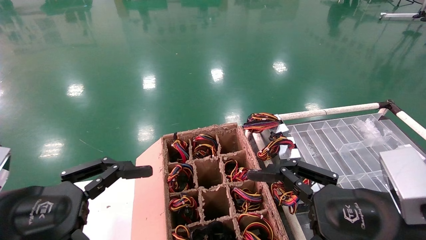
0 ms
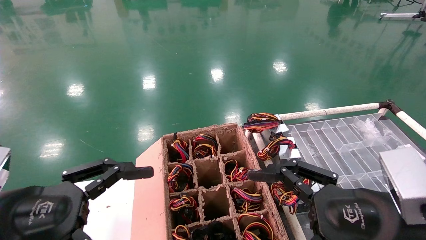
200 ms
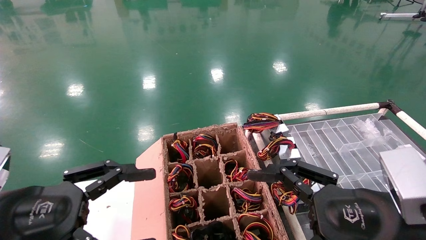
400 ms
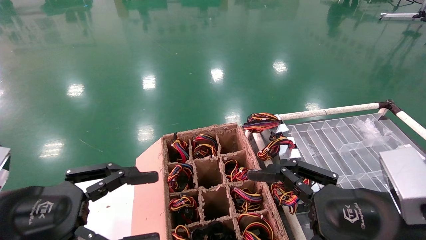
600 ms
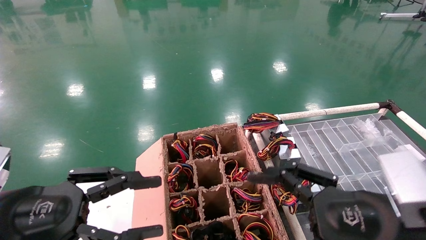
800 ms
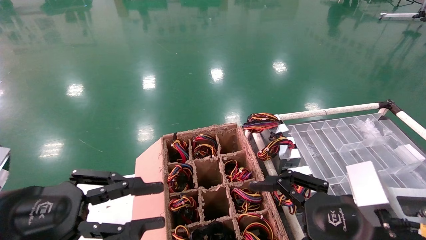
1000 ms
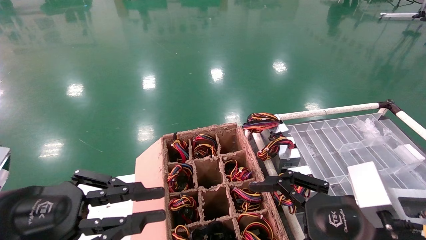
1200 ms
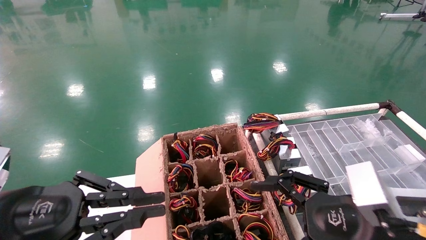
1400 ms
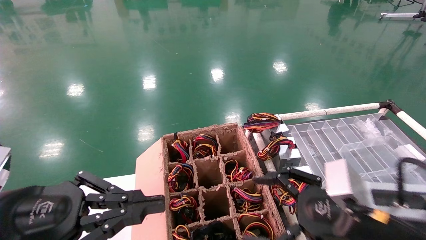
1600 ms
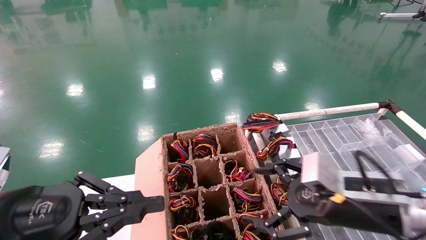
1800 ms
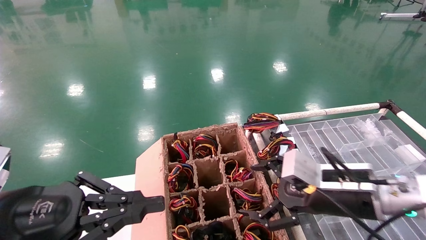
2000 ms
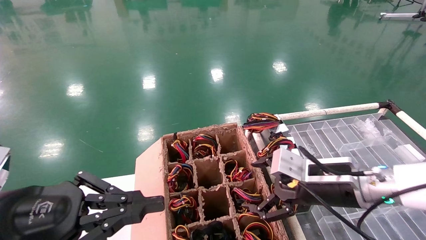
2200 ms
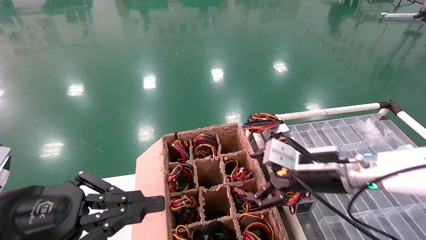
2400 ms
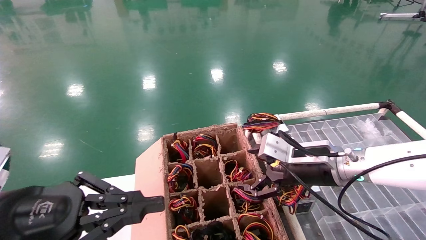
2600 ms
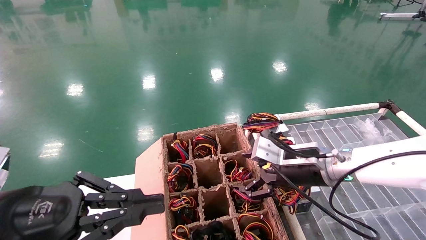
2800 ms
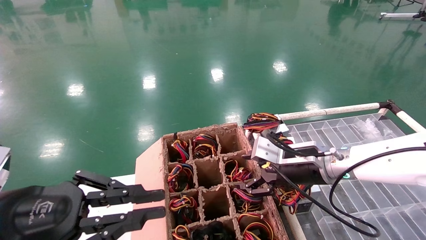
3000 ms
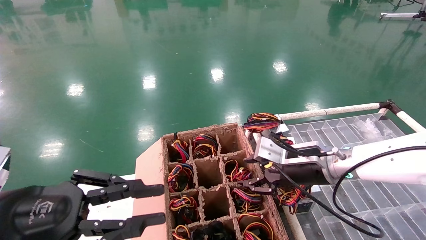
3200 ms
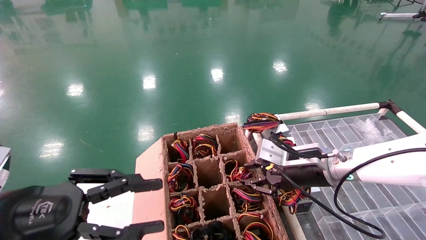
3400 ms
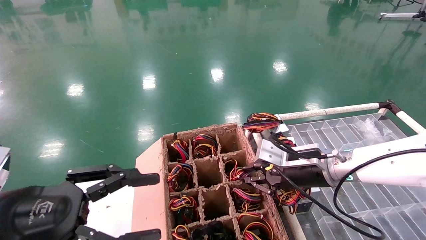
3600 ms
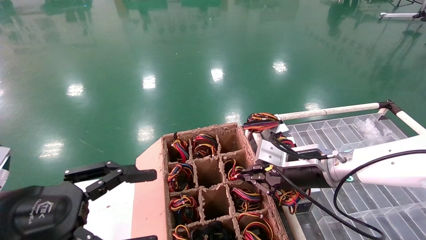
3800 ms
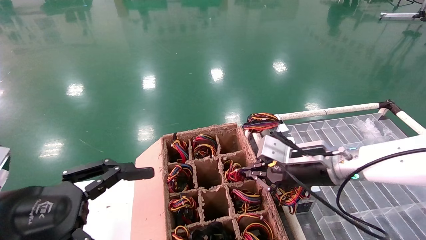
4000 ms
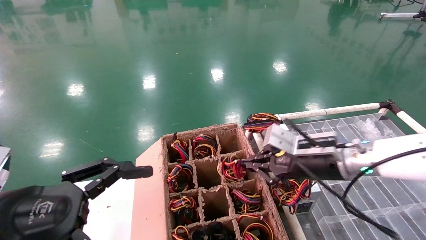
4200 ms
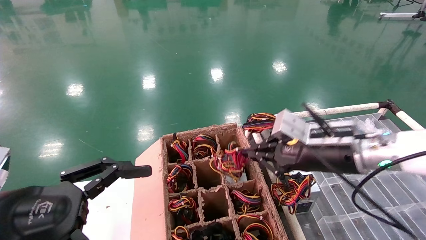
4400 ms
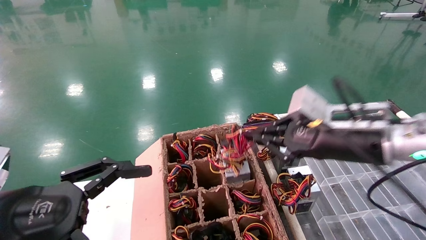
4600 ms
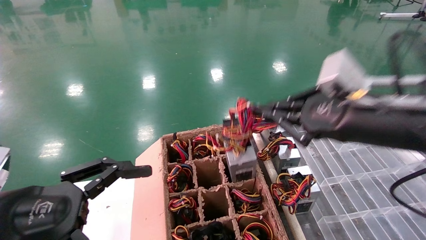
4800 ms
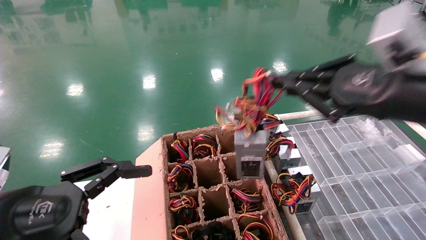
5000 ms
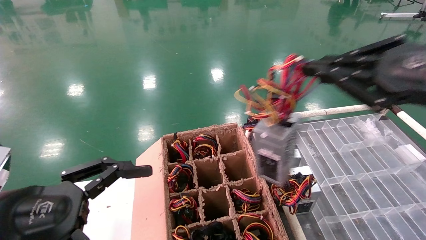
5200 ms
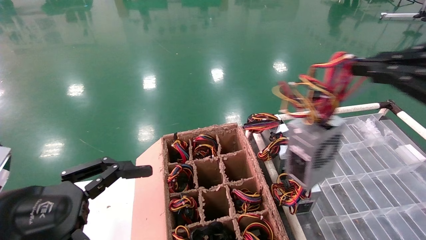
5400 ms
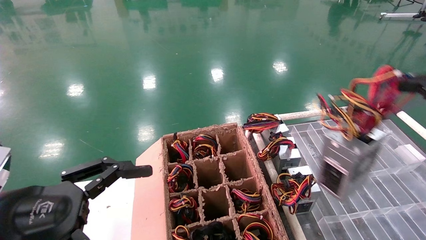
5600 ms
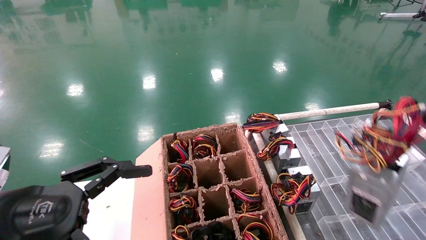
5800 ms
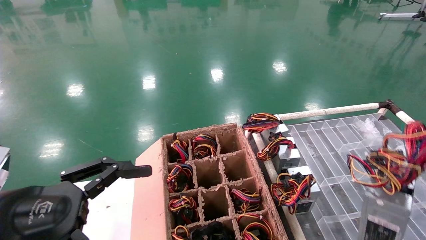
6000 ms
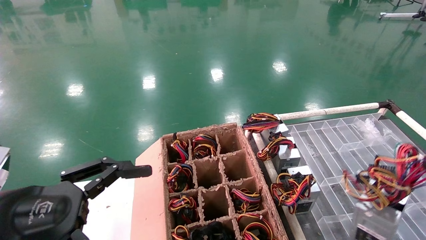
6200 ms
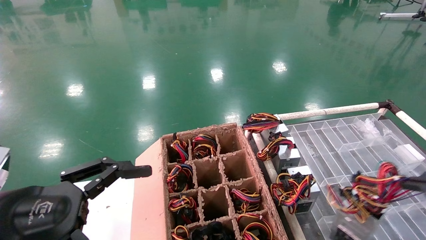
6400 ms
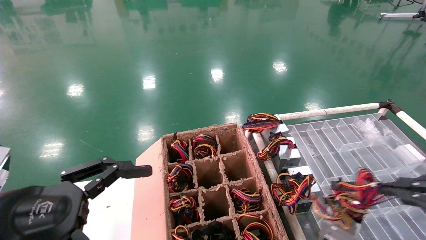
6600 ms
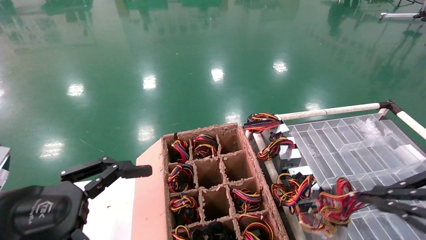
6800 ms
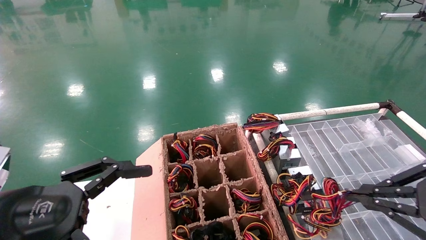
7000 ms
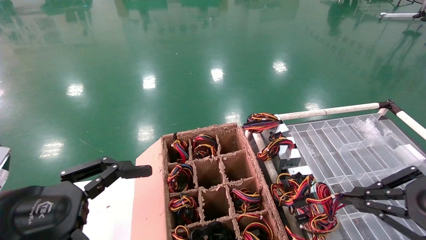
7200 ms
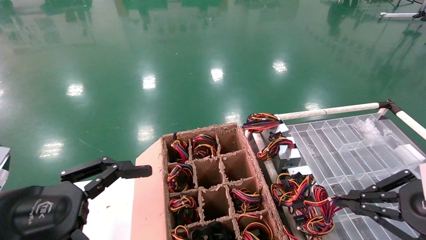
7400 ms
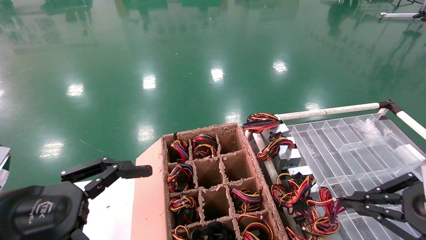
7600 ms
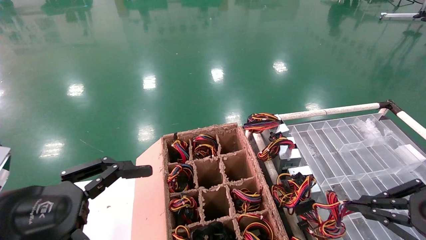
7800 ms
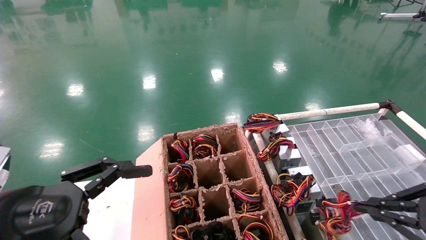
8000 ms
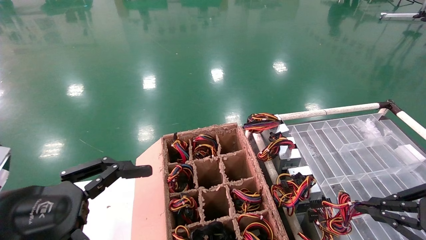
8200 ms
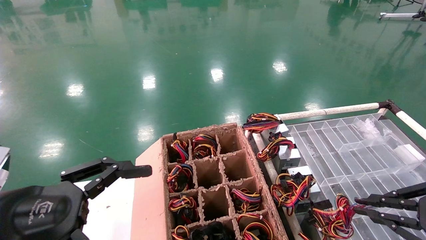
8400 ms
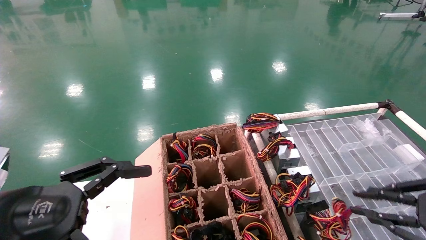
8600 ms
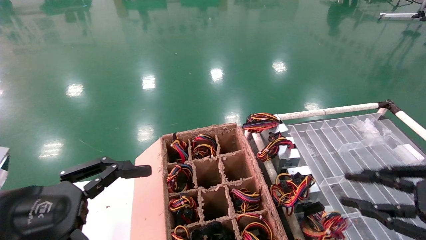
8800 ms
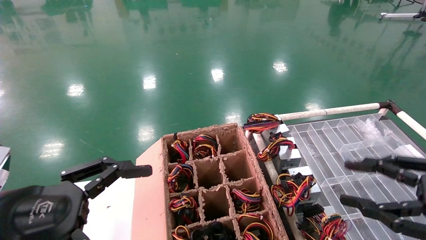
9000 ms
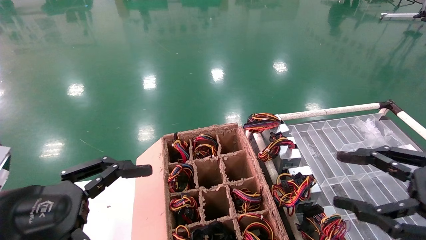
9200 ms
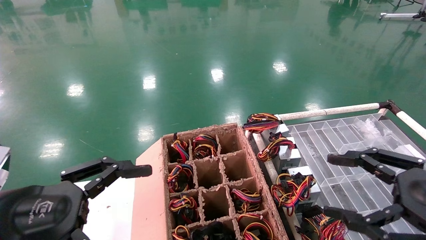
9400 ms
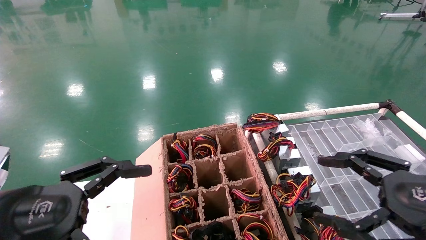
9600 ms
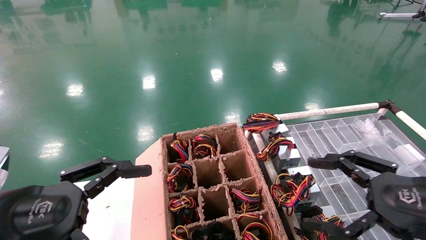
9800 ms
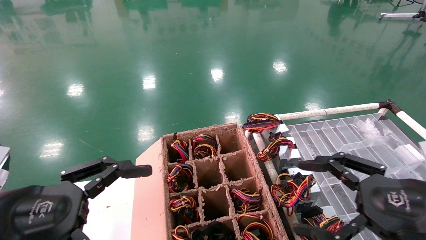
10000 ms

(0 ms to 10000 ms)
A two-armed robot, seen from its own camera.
Step, 1800 ms - 3800 ms: Grab and lift the power supply from the large box.
Step, 4000 ms - 8400 ms: Place the power supply on the operating table.
0 ms - 1400 ms: The left gripper closes its fingers.
1400 ms - 2800 ms: The right gripper is displaced forward by roughly 15 cm.
2800 ms - 4200 ms: The left gripper opens. Meanwhile the right gripper closes up.
4200 ms - 5800 ms: The right gripper heads backward, to the right and upward, covering roughly 35 cm.
5800 ms - 7200 ms: The right gripper shifts some 10 cm downward and forward.
8600 ms - 10000 ms: The right gripper heads to the left, covering about 10 cm, and opens.

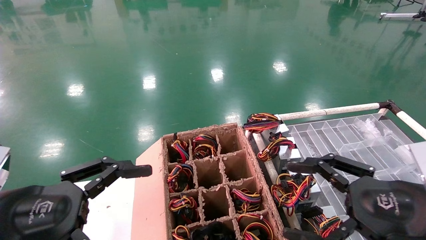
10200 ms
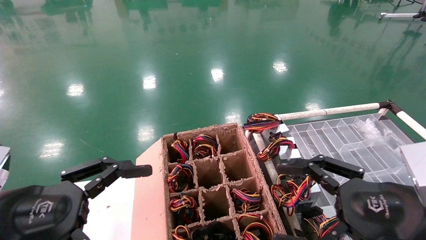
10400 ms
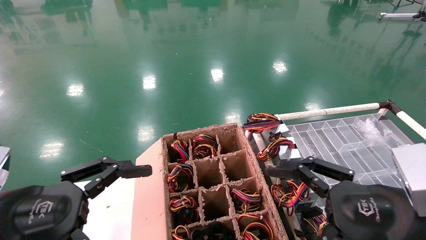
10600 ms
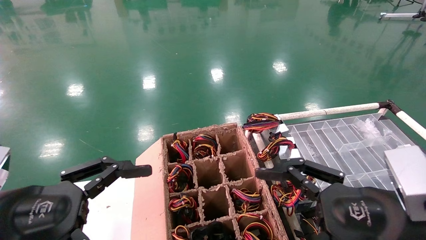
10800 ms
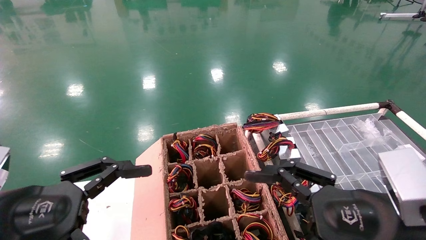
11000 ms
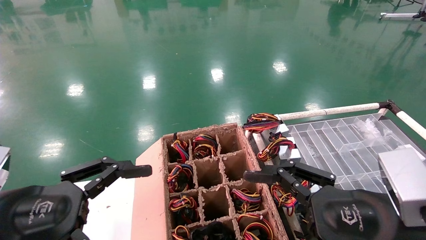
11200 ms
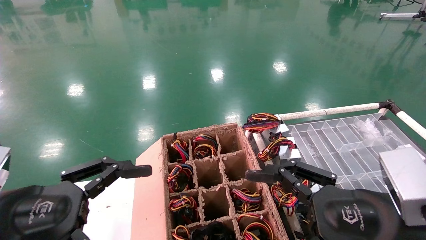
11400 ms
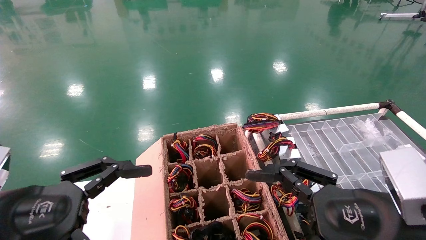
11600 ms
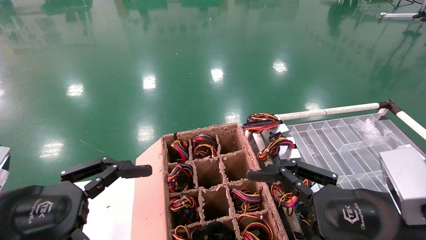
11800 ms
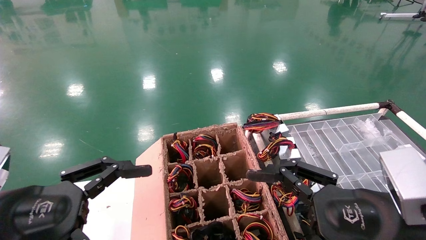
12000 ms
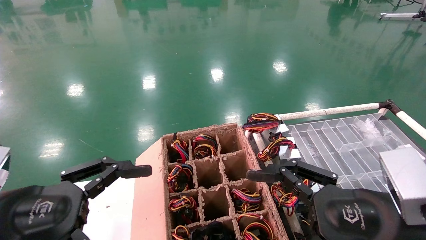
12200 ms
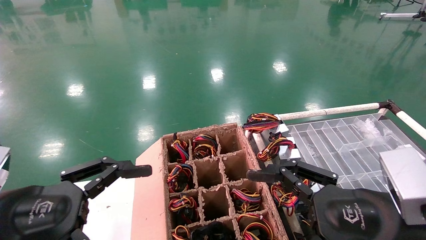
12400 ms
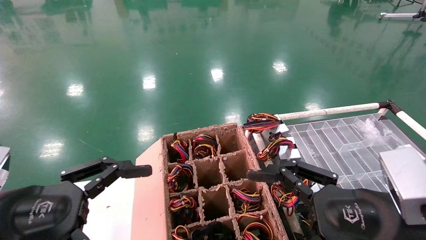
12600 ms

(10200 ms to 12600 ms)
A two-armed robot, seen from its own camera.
10200 ms - 11400 ms: The right gripper travels to the left by roughly 5 cm.
11400 ms - 12600 ms: Both grippers stay about where they are.

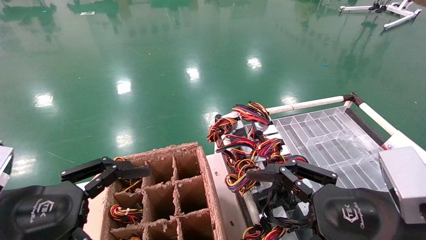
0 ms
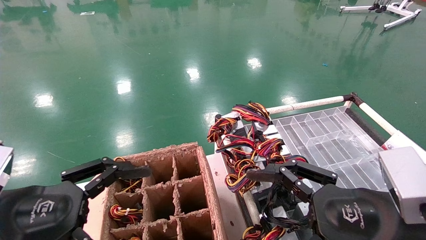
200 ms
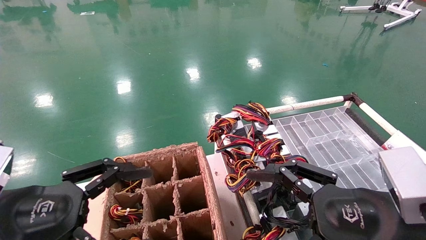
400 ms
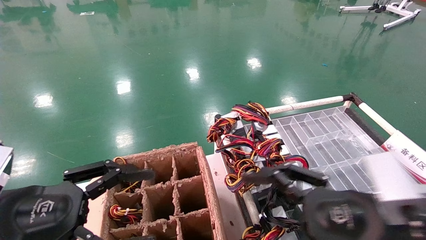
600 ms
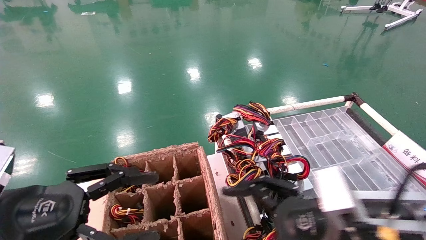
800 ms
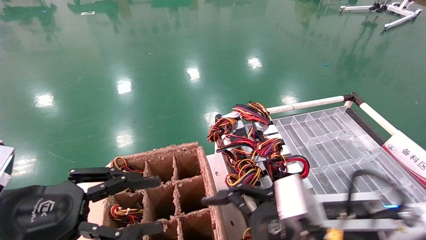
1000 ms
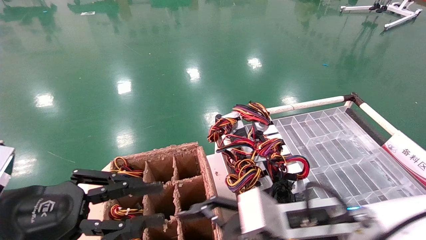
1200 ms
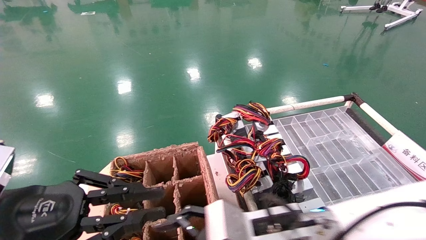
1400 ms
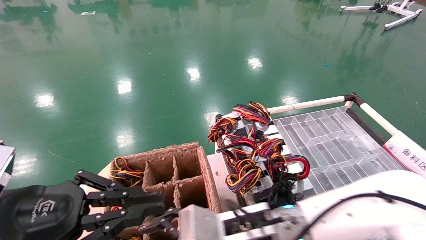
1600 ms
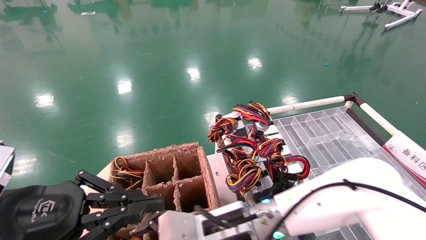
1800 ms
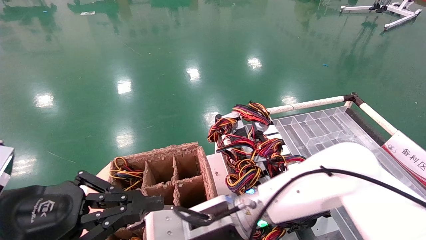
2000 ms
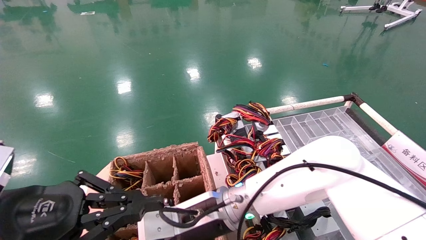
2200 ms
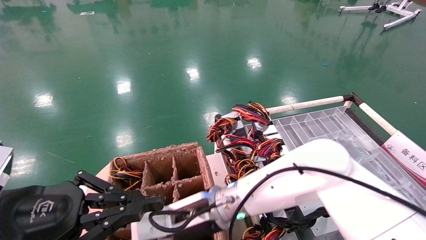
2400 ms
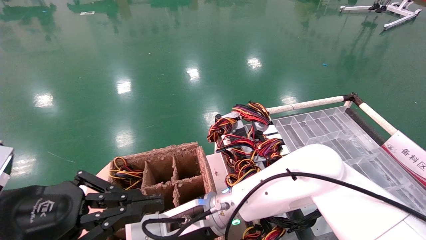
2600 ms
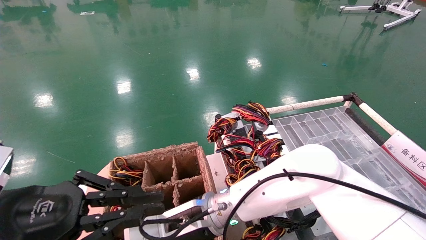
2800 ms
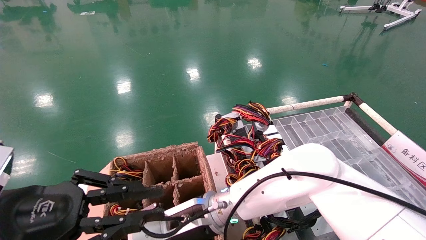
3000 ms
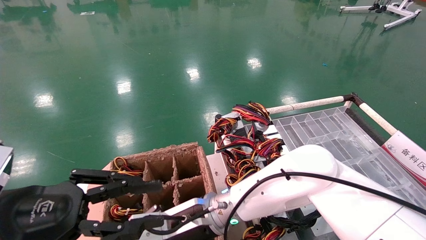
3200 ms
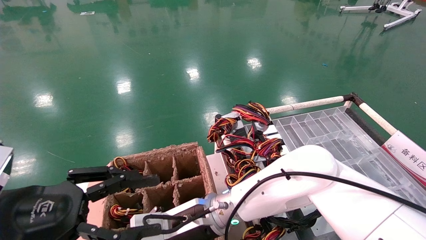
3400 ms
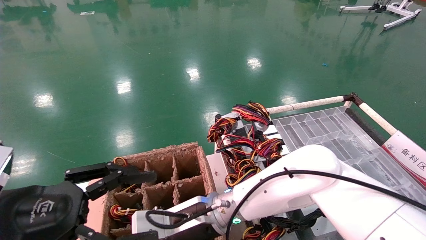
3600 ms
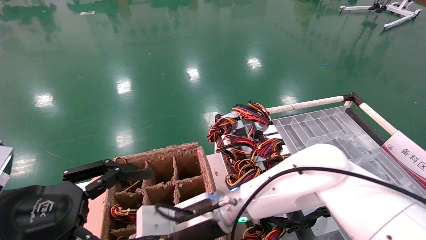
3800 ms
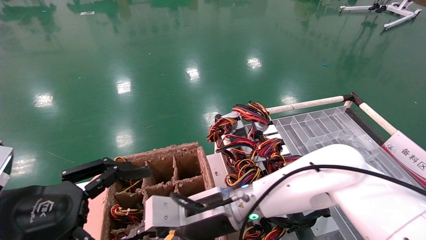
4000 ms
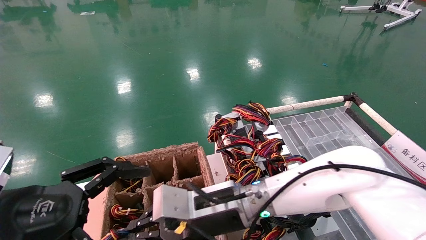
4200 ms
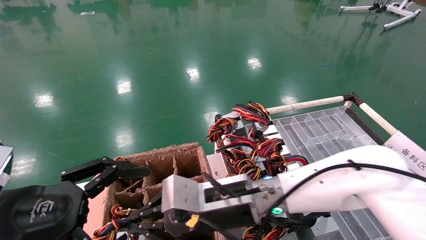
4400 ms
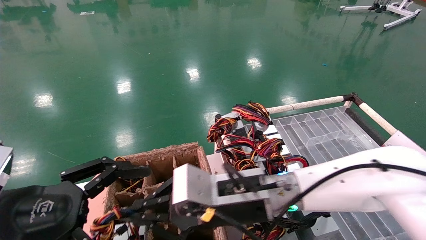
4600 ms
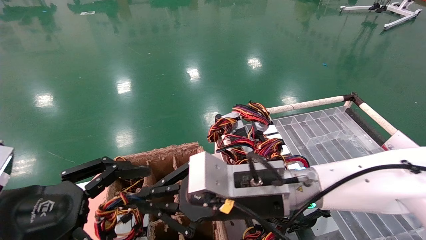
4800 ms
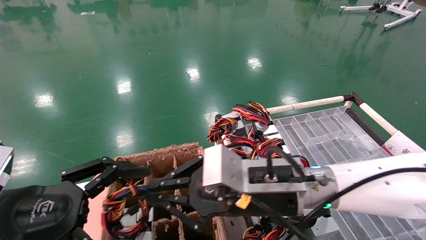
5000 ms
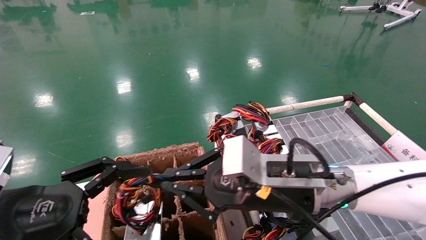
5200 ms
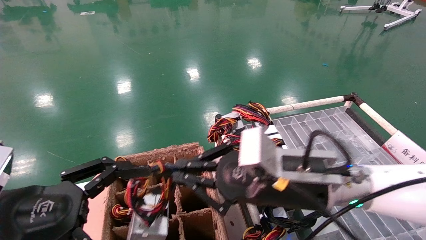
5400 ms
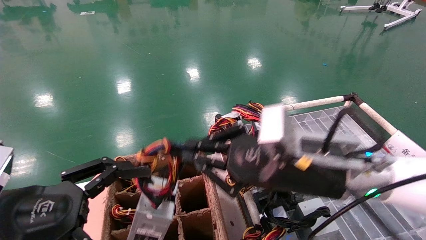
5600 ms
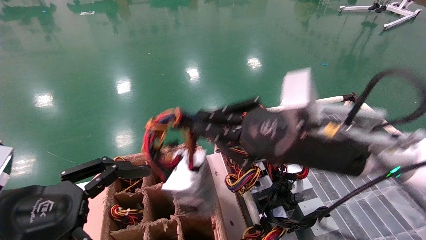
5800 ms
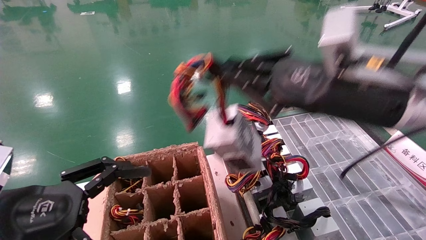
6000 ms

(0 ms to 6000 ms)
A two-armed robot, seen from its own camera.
Step, 1000 ms - 3400 ms: Grab and lift the power supply from the large box.
0 ms - 1600 ms: The left gripper closes its fingers; the right gripper is displaced to the left, forward and downward by roughly 20 cm.
1600 ms - 3000 ms: The right gripper shifts some 10 cm to the left and forward, and closes.
3000 ms - 4400 ms: The left gripper opens. Meanwhile the right gripper shifts about 5 cm to the right, and closes up.
4400 ms - 6000 ms: The right gripper goes approximately 25 cm upward and to the right.
